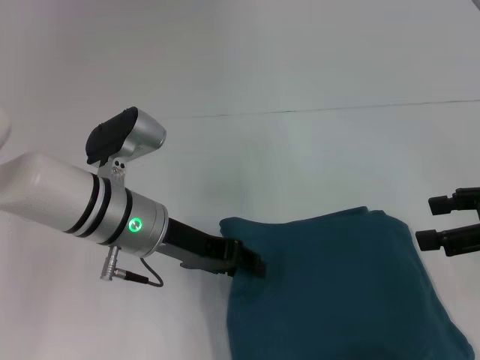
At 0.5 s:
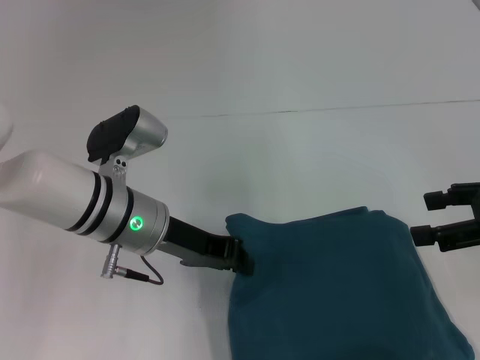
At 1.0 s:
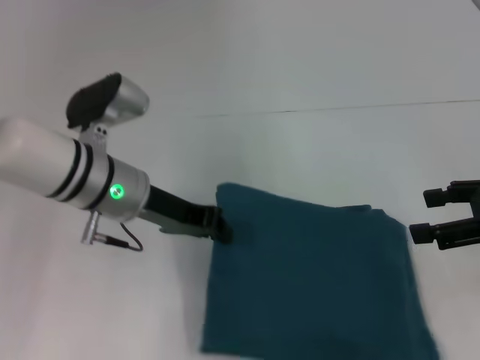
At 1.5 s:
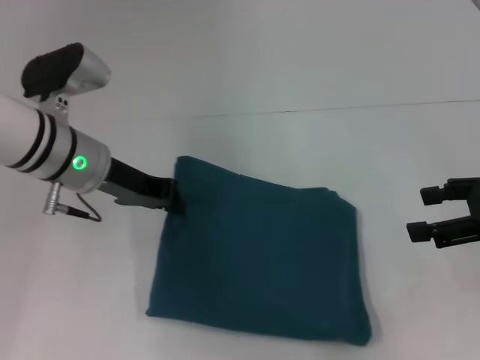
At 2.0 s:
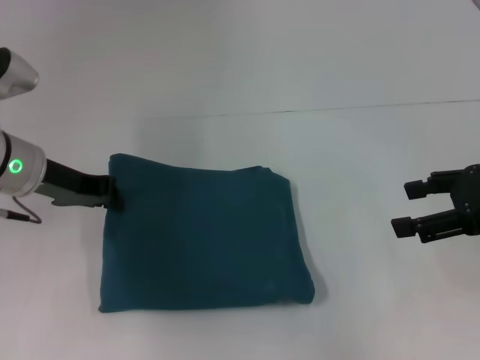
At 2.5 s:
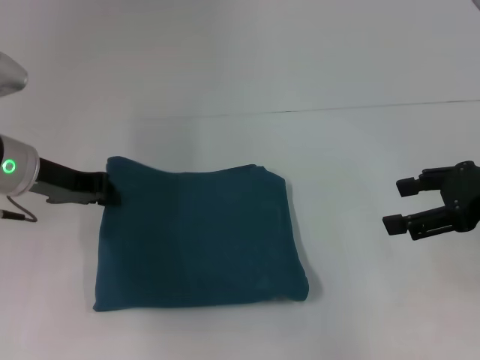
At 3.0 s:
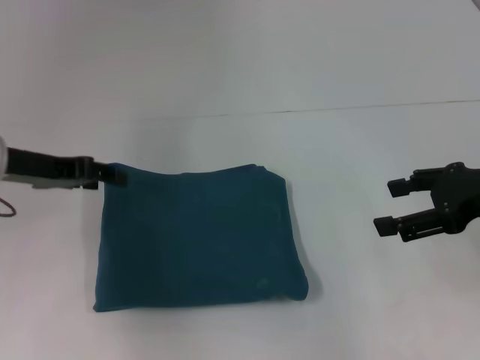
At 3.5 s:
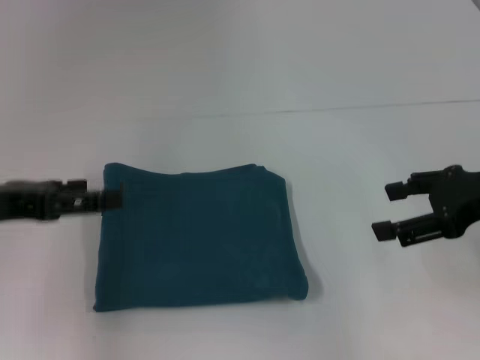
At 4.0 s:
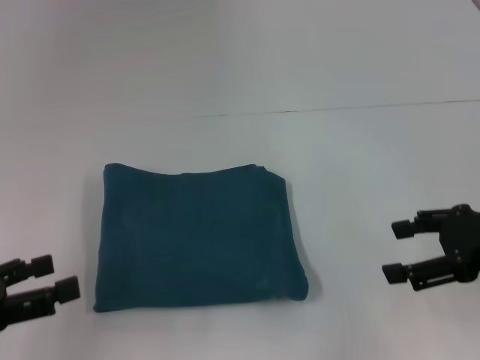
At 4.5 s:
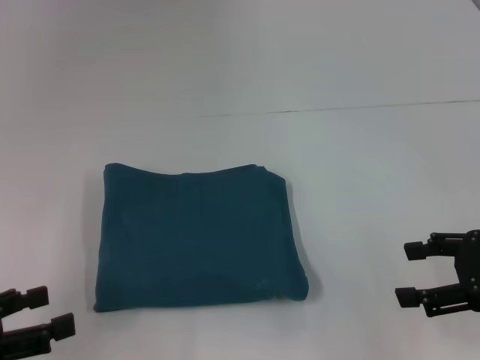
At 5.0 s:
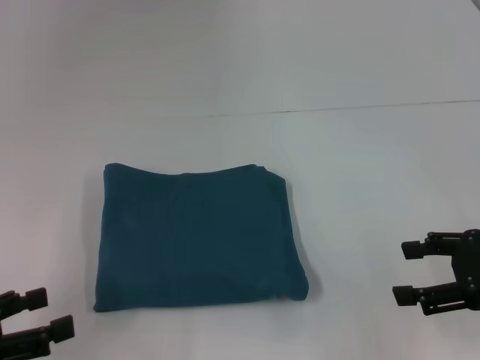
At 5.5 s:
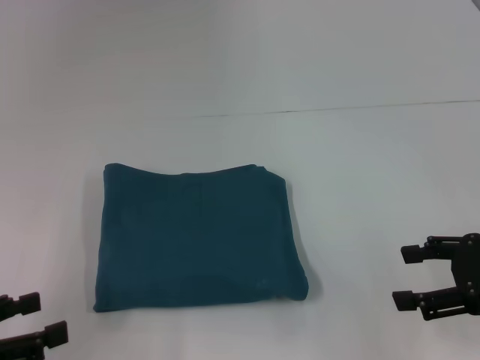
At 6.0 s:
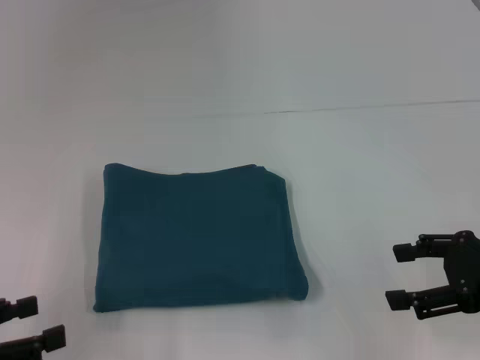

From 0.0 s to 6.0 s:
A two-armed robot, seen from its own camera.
From 0.0 s to 2.0 s: The left gripper is displaced to the left by approximately 10 cm, and closes its fingers.
From 2.0 s to 4.0 s: The left gripper is displaced backward and to the left by about 20 cm, and opens its fingers.
From 4.0 s to 6.0 s: The grippers move only a little.

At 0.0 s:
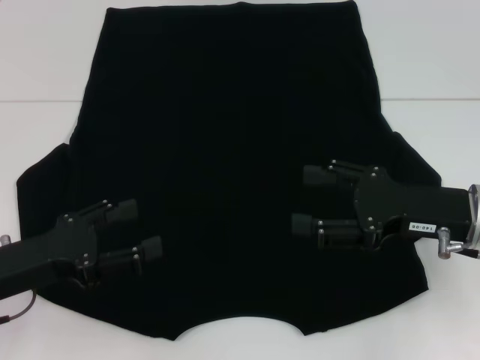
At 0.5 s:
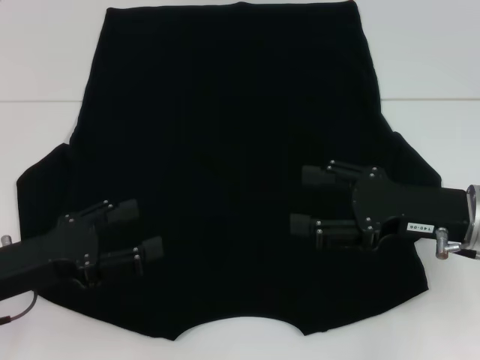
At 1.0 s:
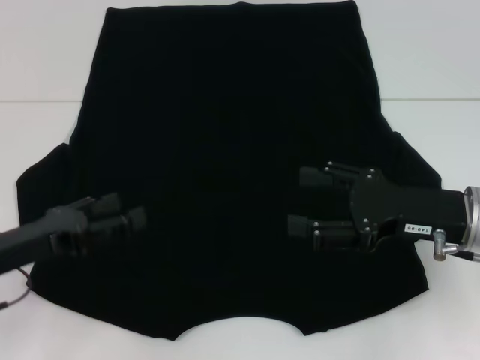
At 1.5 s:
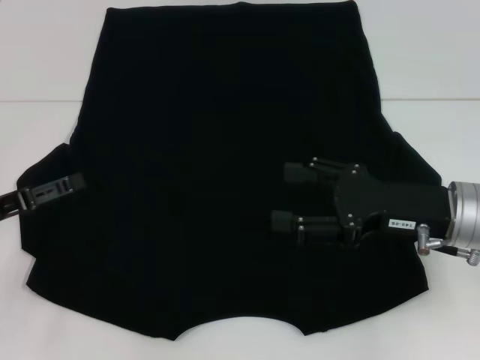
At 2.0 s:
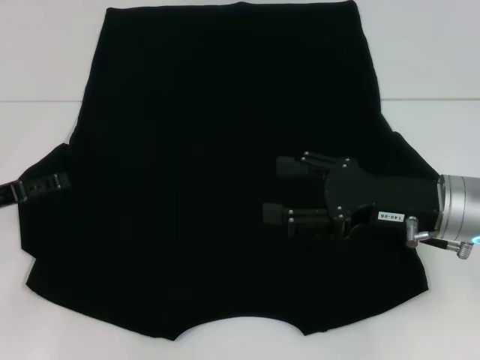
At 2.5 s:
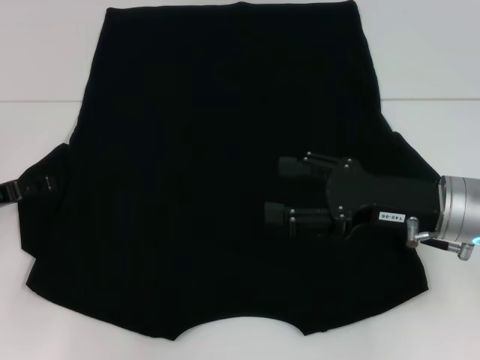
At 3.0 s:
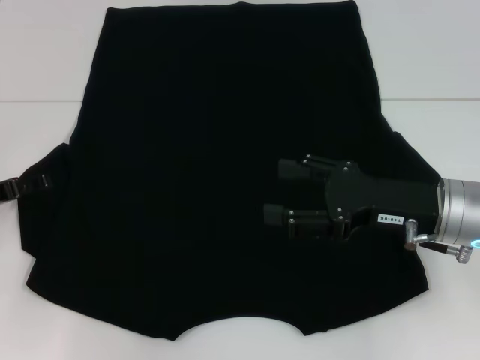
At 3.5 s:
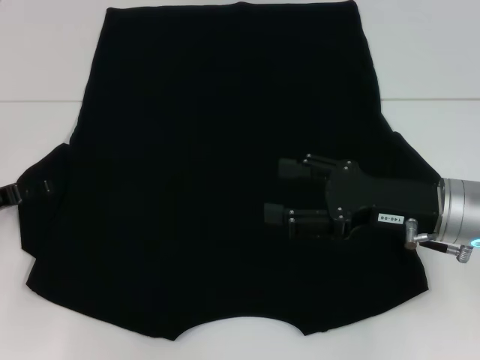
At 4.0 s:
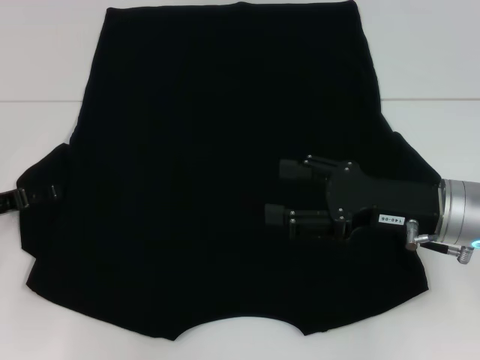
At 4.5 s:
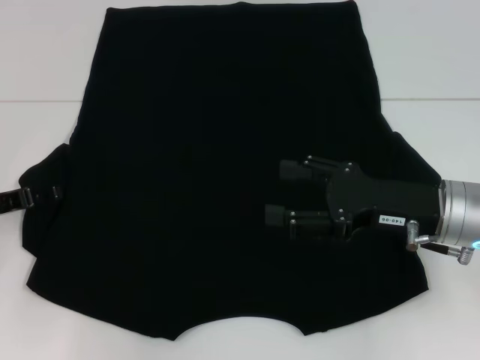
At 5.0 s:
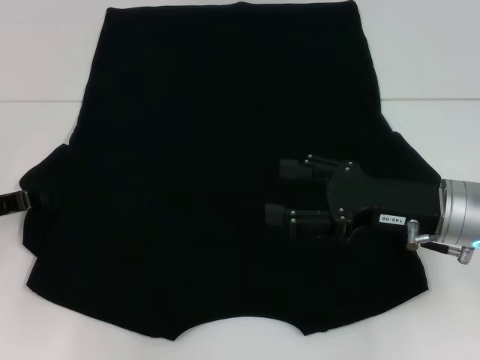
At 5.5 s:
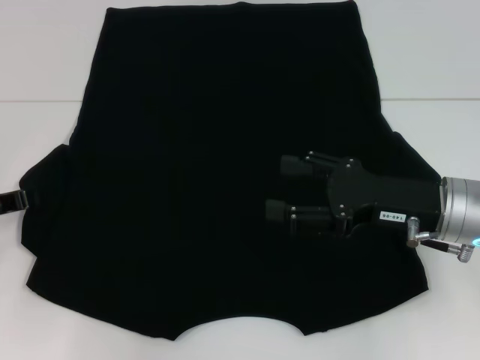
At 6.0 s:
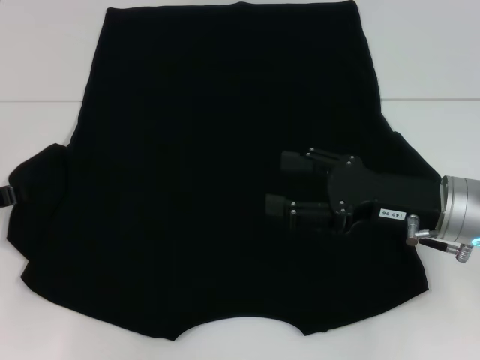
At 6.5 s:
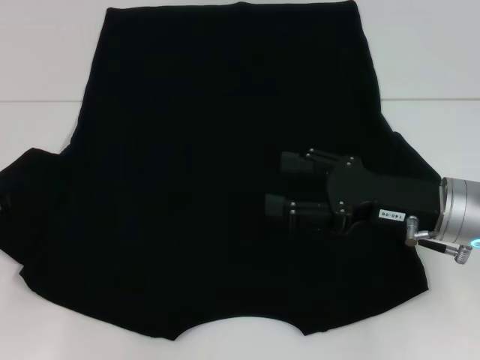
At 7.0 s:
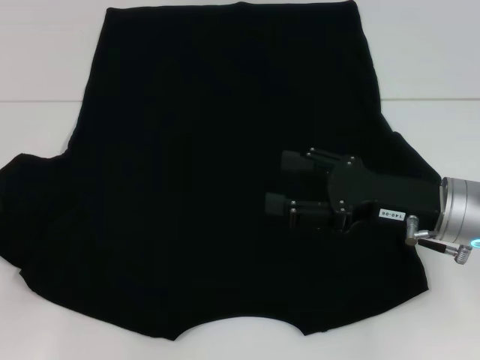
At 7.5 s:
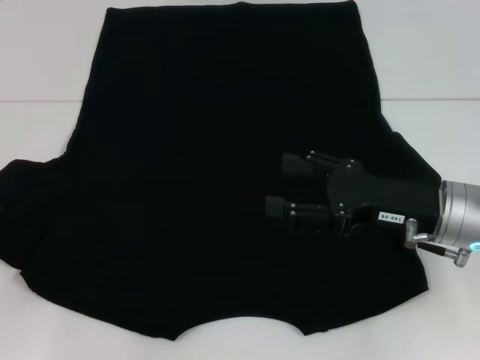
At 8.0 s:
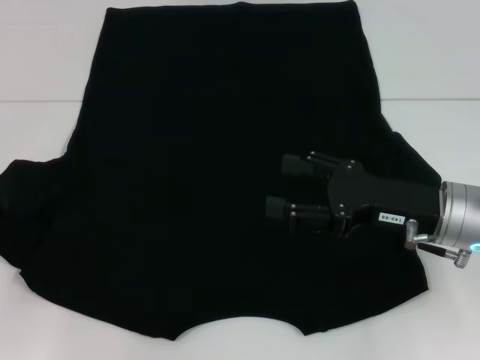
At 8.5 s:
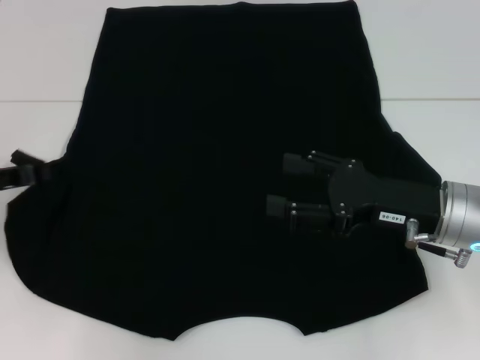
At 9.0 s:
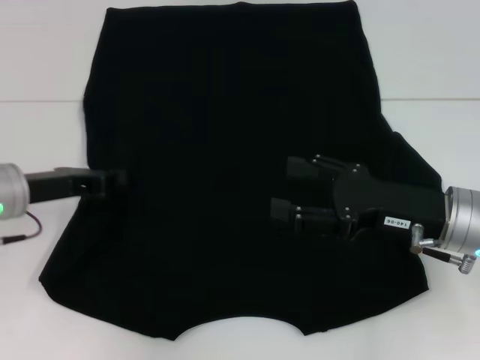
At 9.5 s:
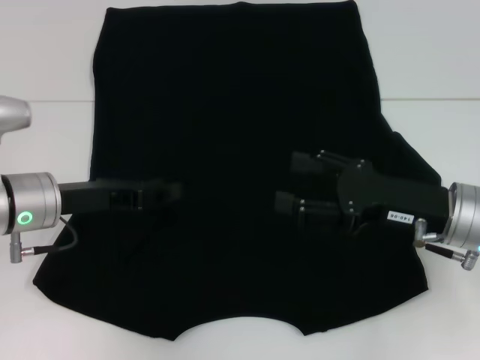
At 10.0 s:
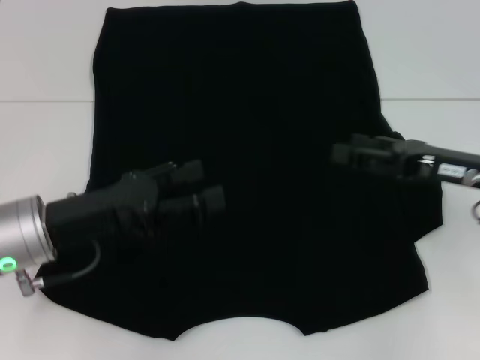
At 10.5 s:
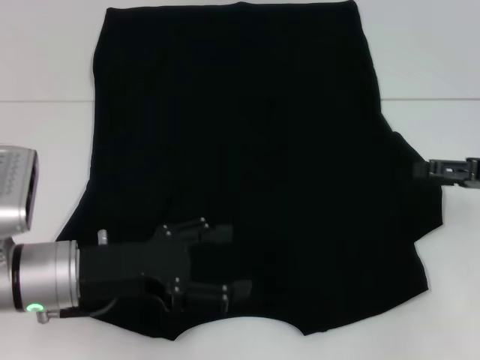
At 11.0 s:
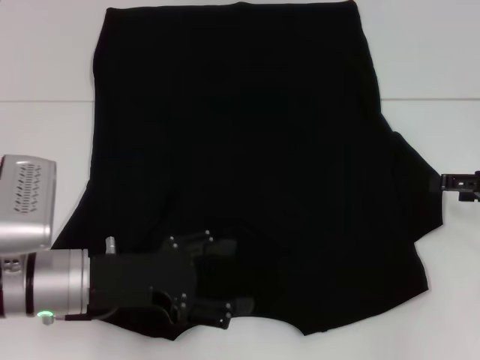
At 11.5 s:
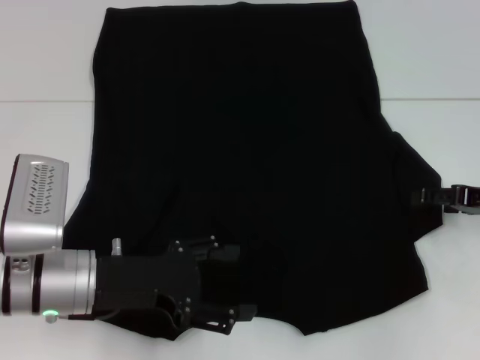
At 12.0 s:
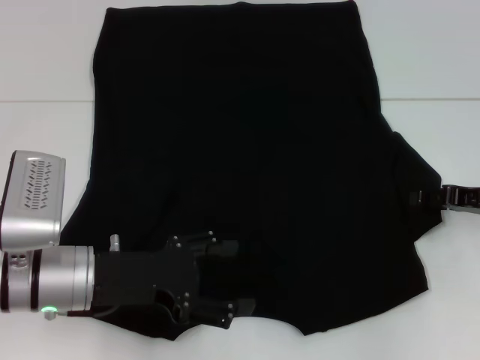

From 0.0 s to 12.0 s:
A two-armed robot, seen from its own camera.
Step, from 0.0 s to 9.0 s: Fold the bottom left sleeve with your left hand.
From 0.0 s to 2.0 s: The left gripper shifts about 10 cm forward and to the left.
From 2.0 s to 4.0 s: The grippers stay close to where they were, moving slightly.
From 4.0 s to 6.0 s: The left gripper closes.
From 6.0 s to 8.0 s: The grippers move only a little.
From 8.0 s to 10.0 s: The left gripper heads to the right, covering about 15 cm, and opens its fingers. Meanwhile the right gripper goes about 5 cm to the right.
From 10.0 s to 12.0 s: The right gripper is displaced to the right by roughly 5 cm.

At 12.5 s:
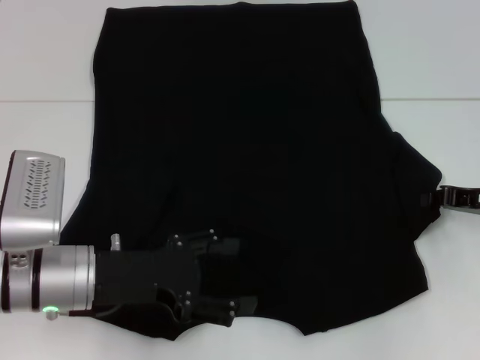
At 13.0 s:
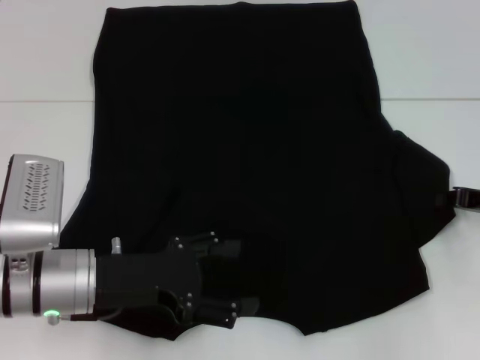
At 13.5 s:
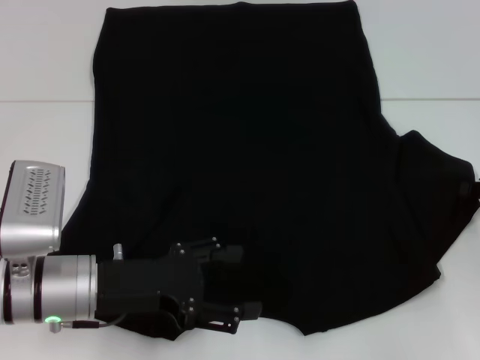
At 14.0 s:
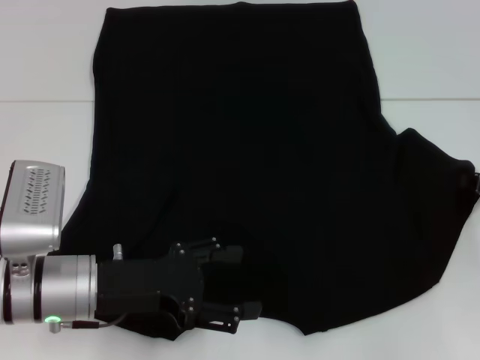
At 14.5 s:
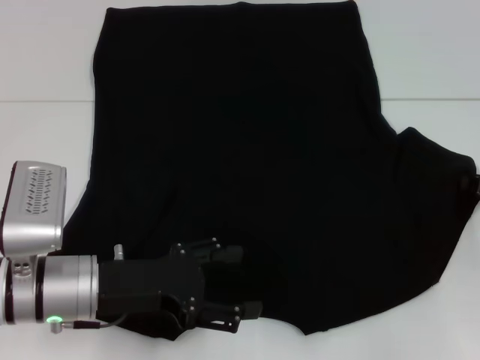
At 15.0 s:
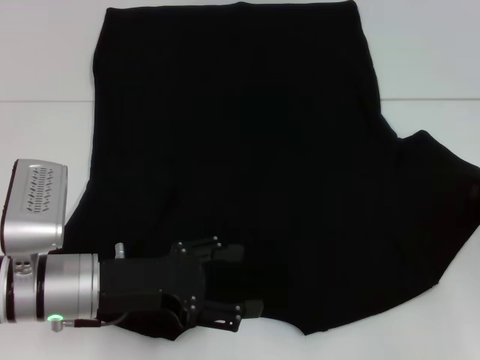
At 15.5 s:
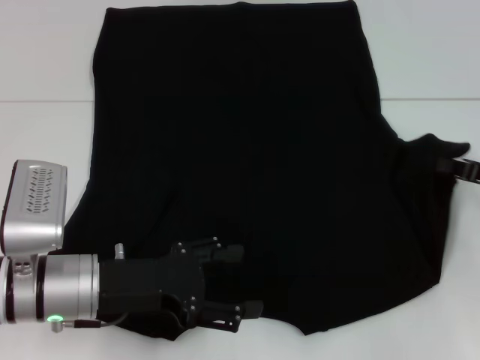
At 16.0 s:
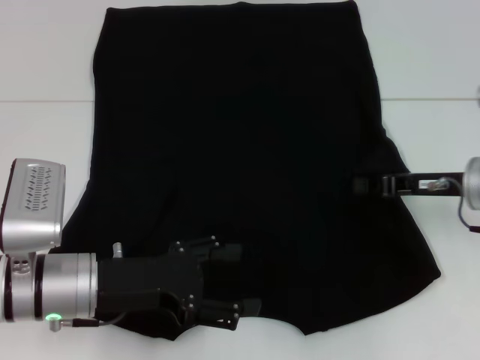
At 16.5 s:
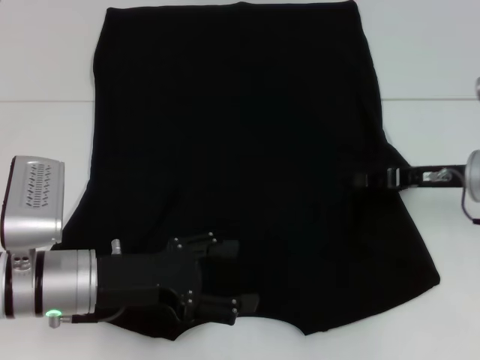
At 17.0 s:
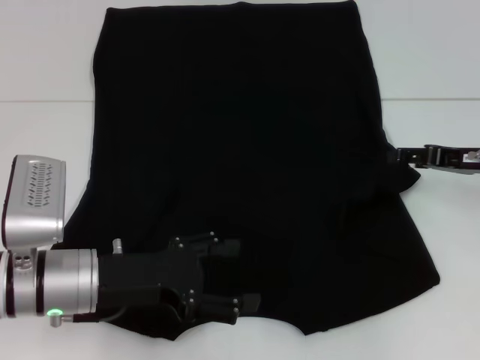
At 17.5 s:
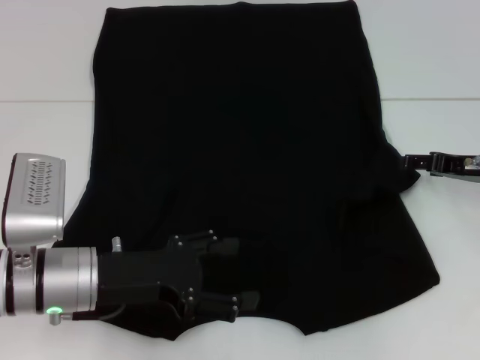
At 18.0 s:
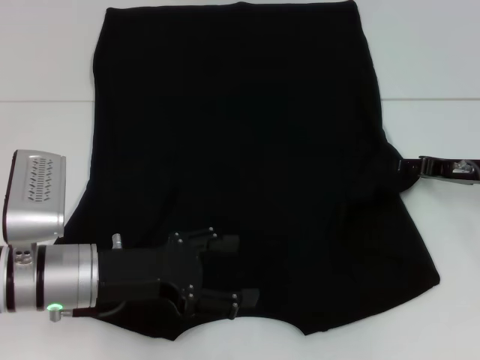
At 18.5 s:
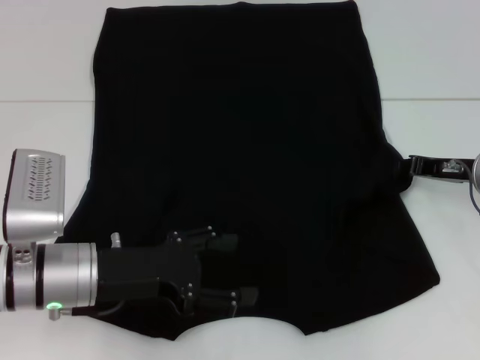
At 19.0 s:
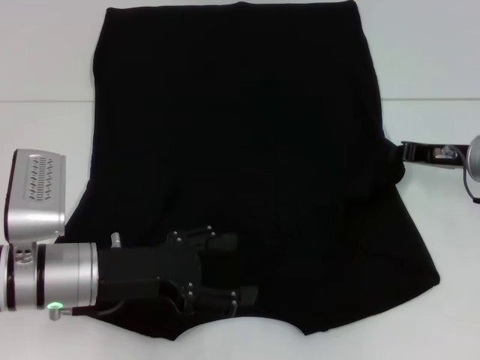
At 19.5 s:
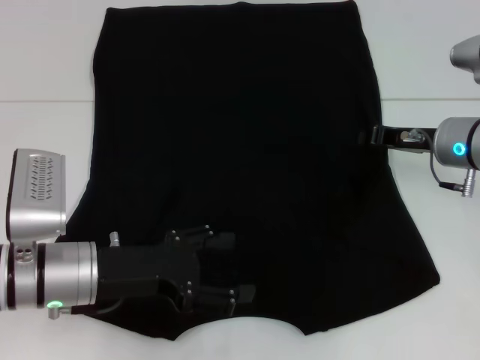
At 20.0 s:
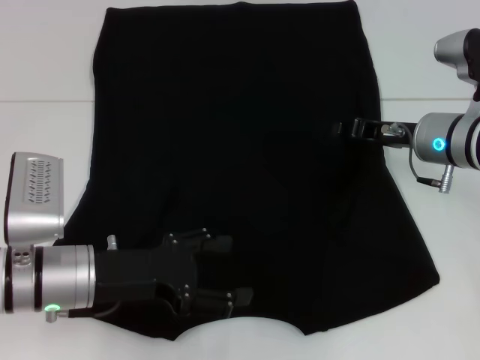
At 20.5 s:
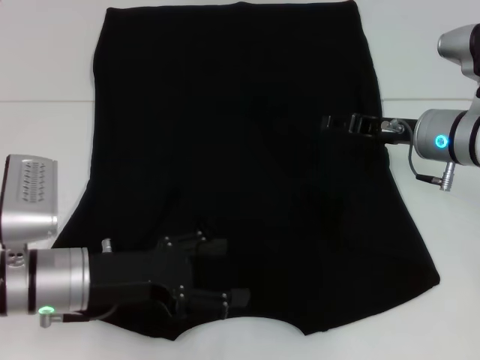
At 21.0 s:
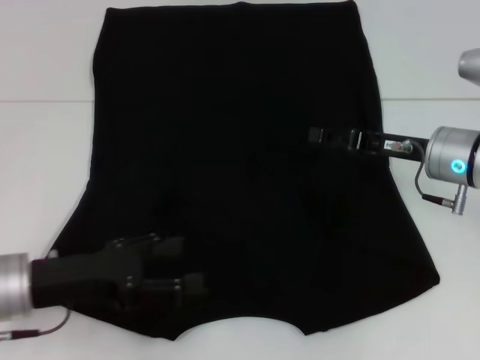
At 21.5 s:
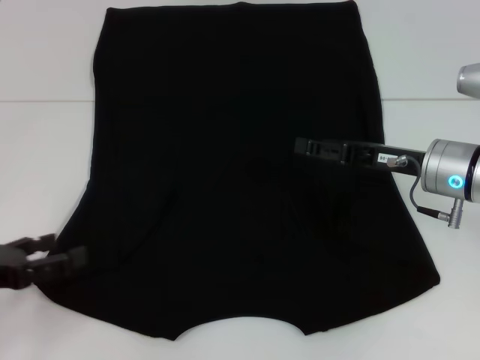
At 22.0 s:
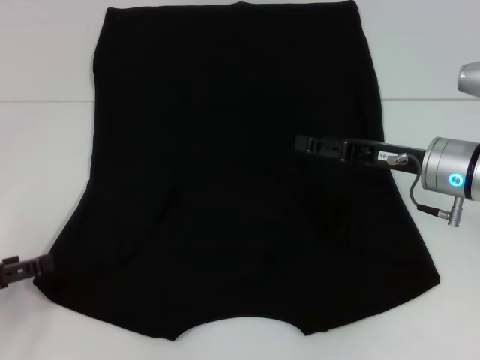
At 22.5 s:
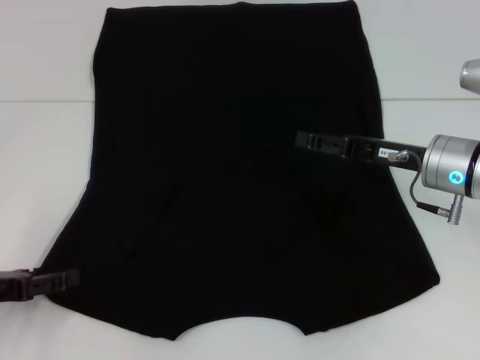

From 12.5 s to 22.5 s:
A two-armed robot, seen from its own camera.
Step, from 12.5 s to 19.5 s: Fold the bottom right sleeve with your right hand.
From 12.5 s to 14.5 s: The grippers move only a little.
From 14.5 s to 16.5 s: The right gripper moves to the left, some 10 cm.
From 16.5 s to 18.5 s: The right gripper opens, then closes again.
From 18.5 s to 20.5 s: The right gripper goes some 5 cm to the left, and closes, then opens again.
From 20.5 s to 22.5 s: The left gripper moves to the left, about 15 cm.
